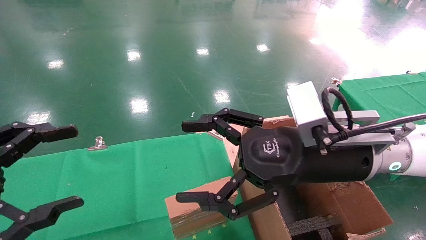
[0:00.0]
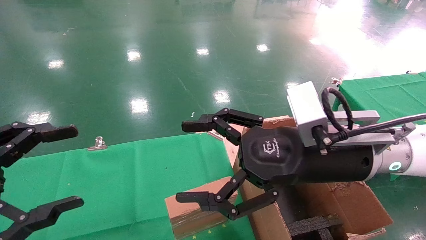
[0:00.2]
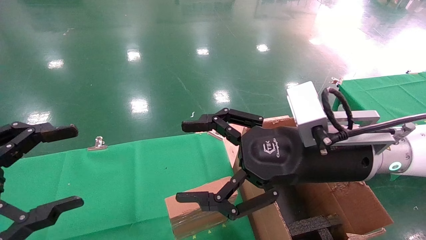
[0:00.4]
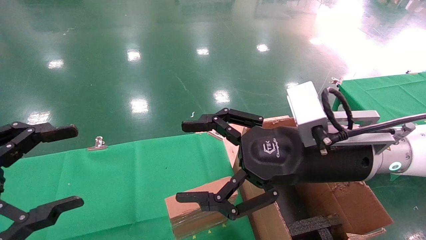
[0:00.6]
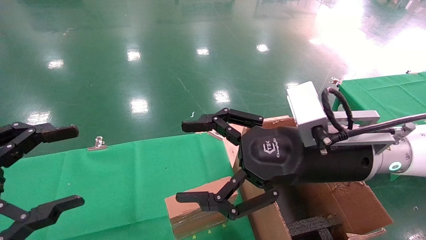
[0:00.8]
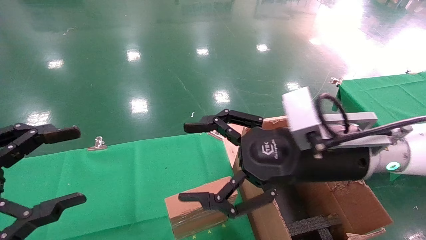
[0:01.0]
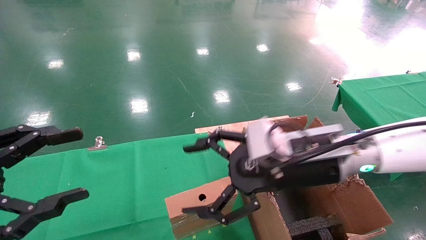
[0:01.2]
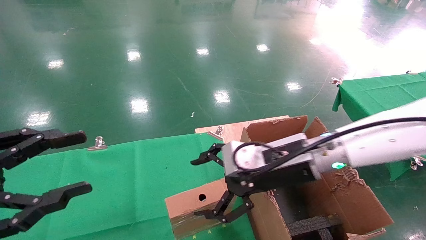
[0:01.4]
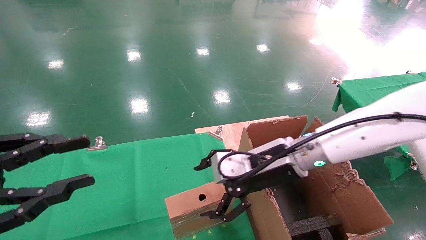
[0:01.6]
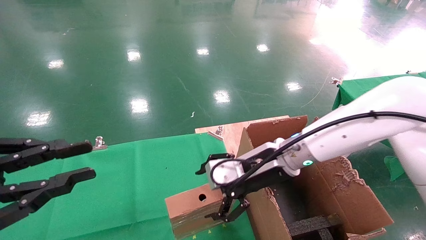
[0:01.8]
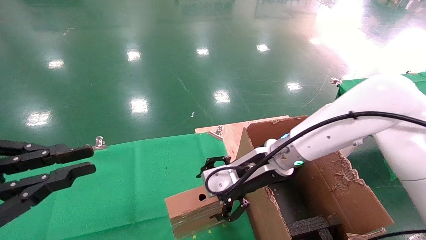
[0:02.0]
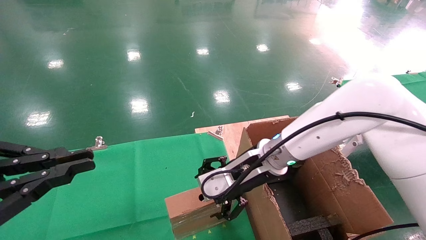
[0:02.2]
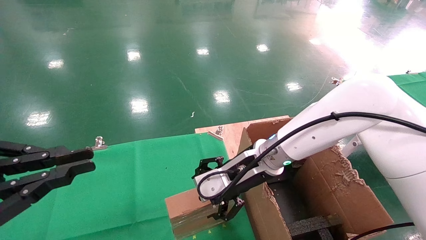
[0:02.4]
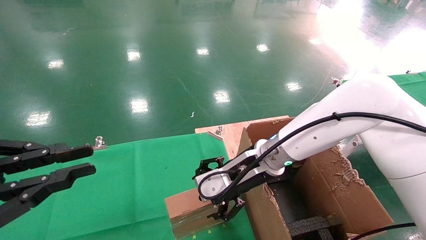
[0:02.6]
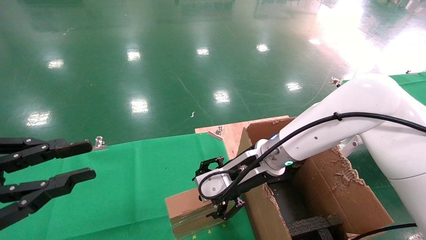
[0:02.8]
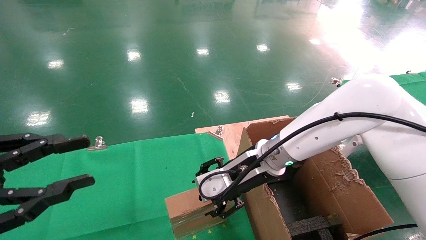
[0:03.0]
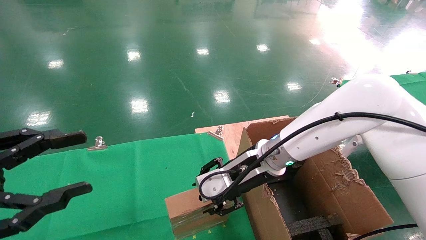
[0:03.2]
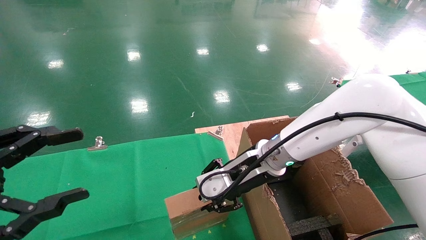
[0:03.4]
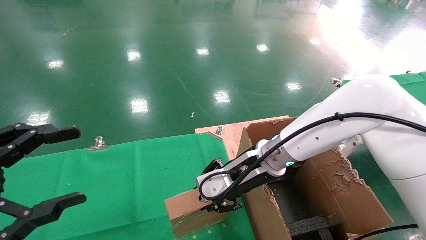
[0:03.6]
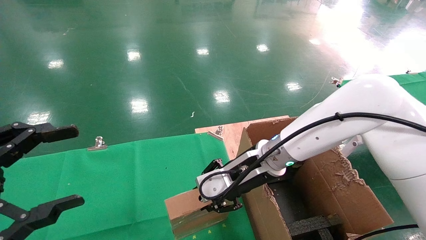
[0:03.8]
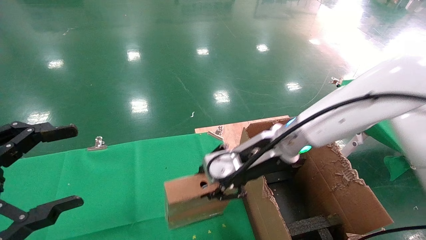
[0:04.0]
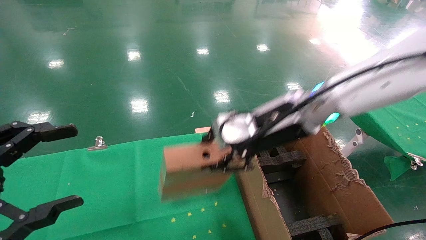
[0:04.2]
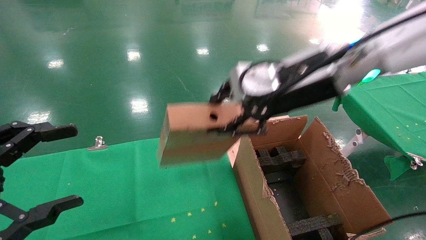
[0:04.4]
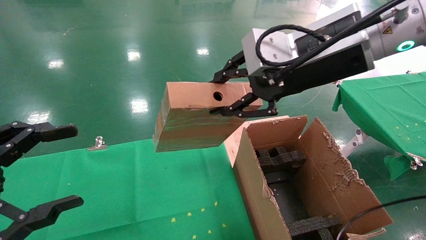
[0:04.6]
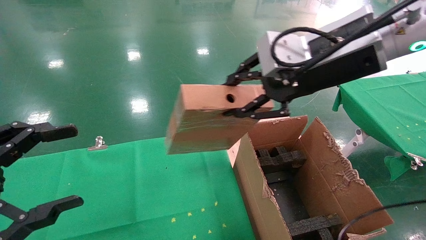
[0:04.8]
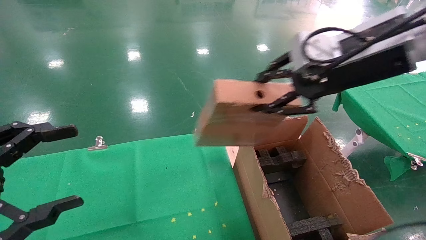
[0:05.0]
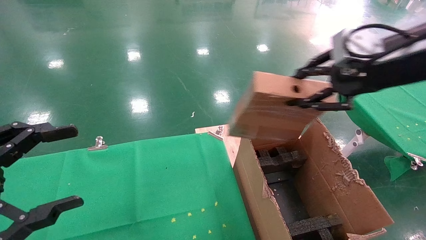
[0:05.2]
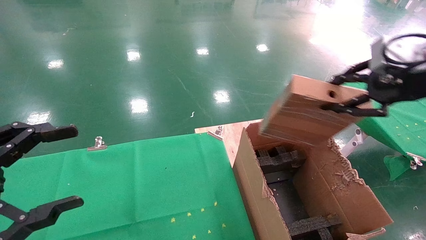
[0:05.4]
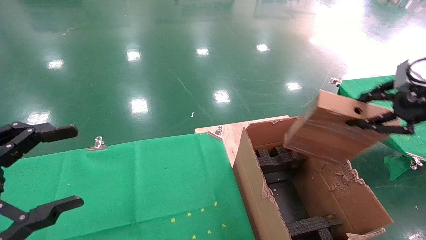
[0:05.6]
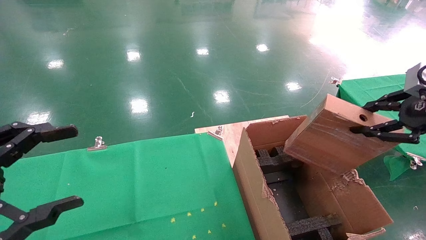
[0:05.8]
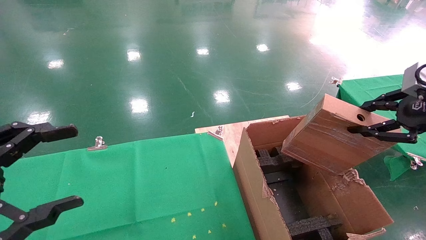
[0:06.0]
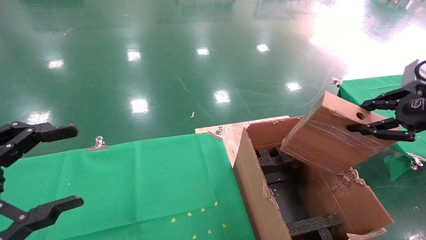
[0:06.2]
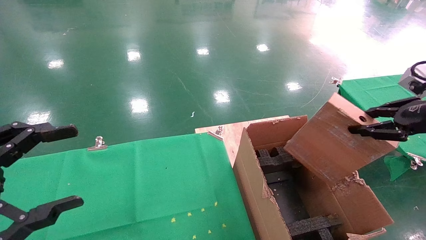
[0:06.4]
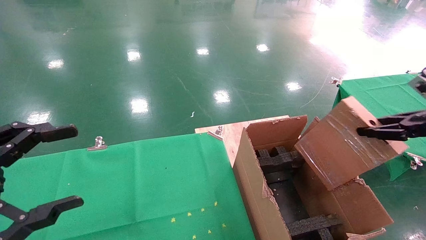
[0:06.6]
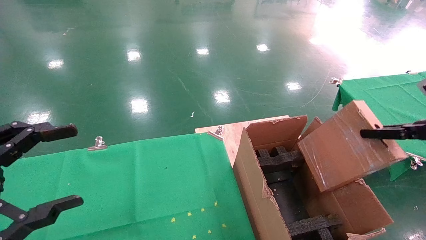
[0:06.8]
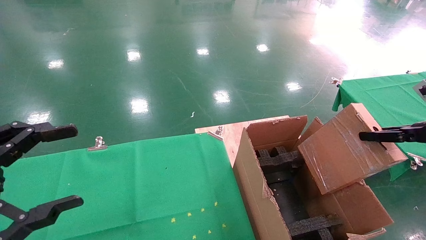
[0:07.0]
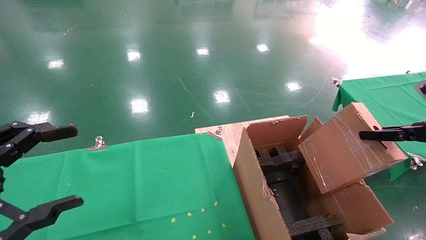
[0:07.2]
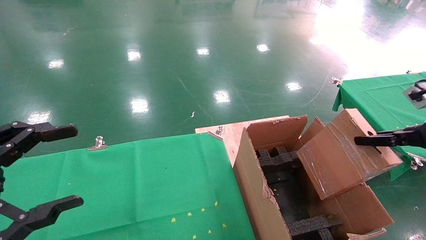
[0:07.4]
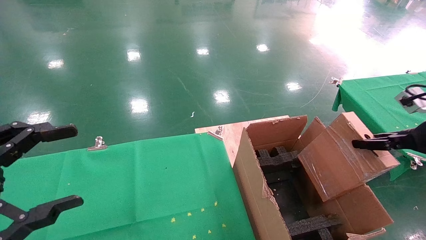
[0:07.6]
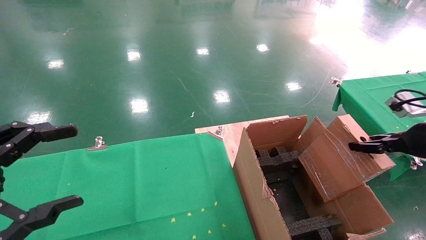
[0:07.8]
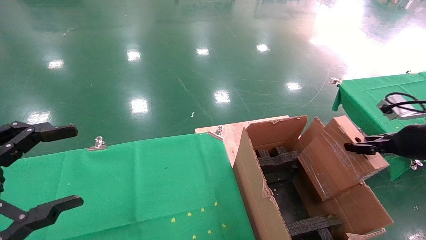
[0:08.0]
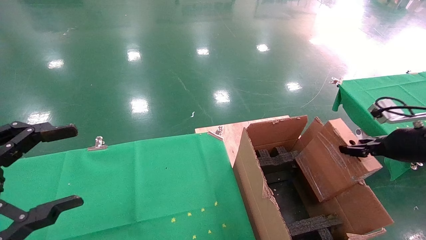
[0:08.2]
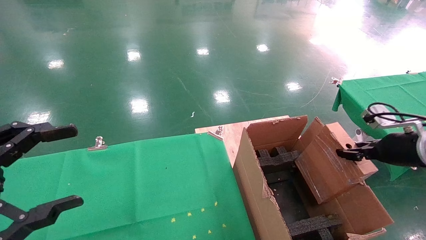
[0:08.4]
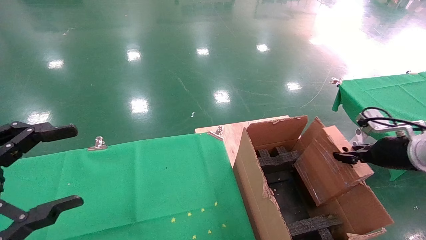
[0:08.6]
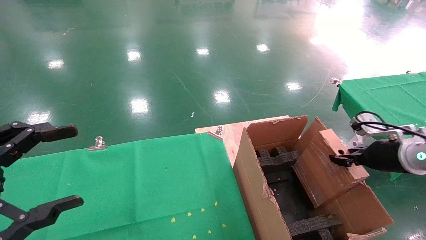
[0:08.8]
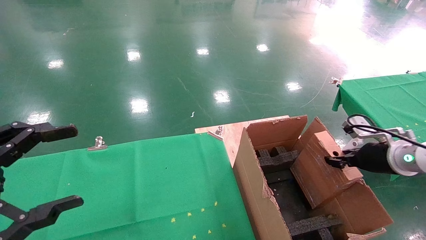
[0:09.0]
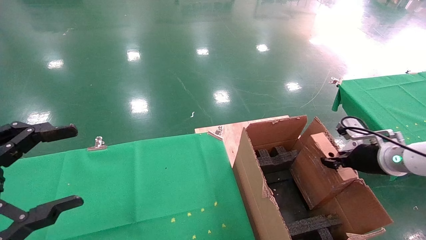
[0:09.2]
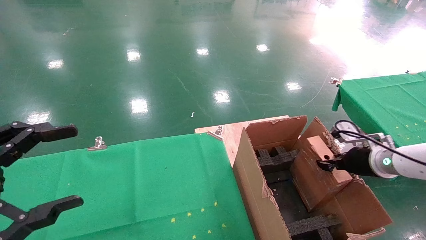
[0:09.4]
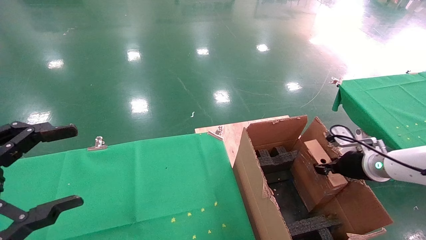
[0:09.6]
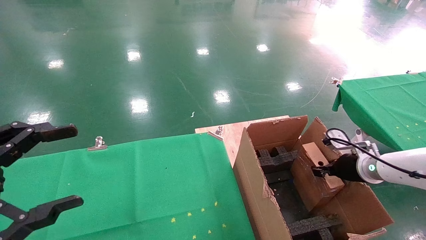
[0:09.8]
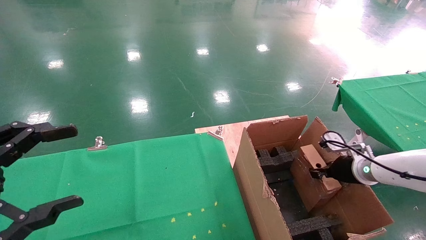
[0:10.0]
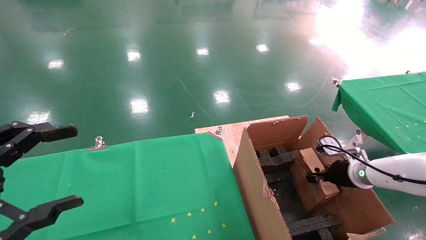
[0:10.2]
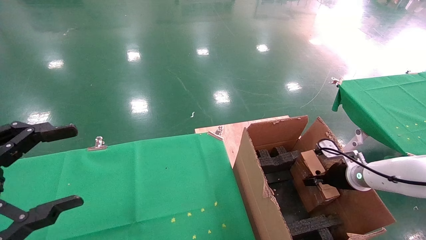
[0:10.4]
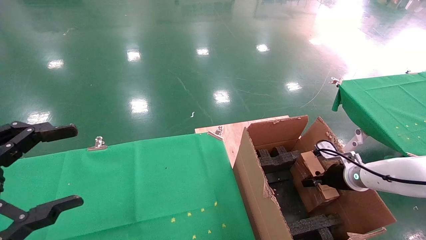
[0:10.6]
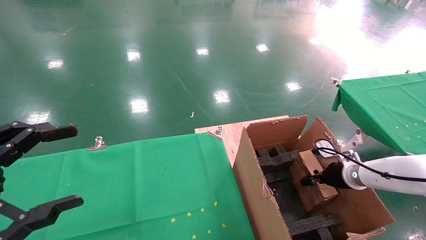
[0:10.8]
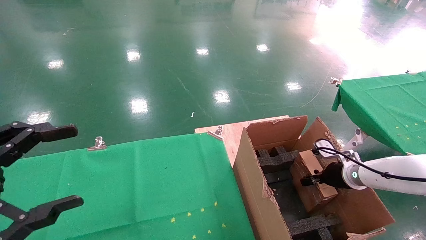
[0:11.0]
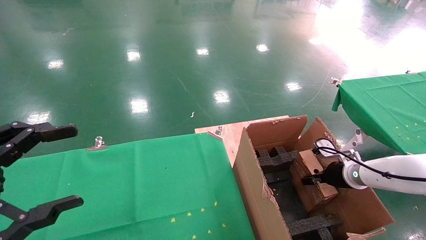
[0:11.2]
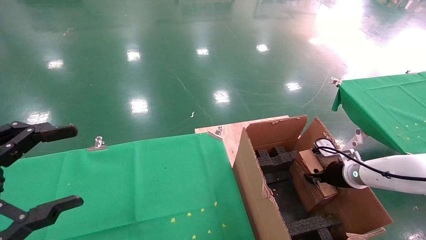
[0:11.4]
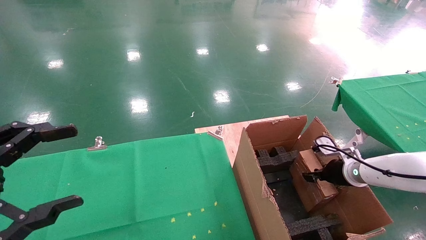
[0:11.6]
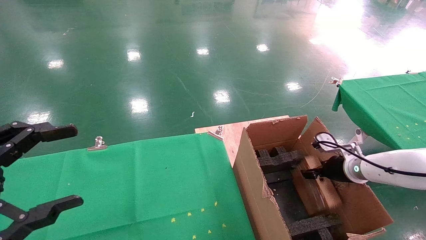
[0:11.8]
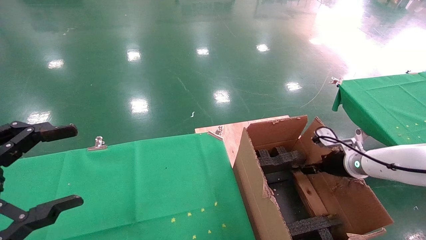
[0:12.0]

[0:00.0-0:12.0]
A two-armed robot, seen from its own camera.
Task of the whole recording: using a robotic arm to pick up a cardboard box and palace it the carton.
Step, 0:01.0 to 0:03.4: Pick up the mouse and the power cord paper box.
0:00.0 to 0:01.6: The right gripper is displaced forward and downward by some 10 cm; the left gripper closes.
0:01.6 to 0:03.0: The grippers move only a little.
0:03.0 to 0:04.4: The left gripper opens up. The right gripper shifts about 15 cm upward, and closes its fingers.
0:04.4 to 0:06.0: The right gripper goes about 25 cm to the right.
0:06.0 to 0:07.6: The right gripper heads downward, covering about 10 cm.
0:07.6 to 0:09.0: The right gripper goes approximately 10 cm downward, forward and to the left.
0:09.0 to 0:10.4: The right gripper goes some 10 cm downward and forward.
0:10.4 to 0:12.0: The right gripper opens.

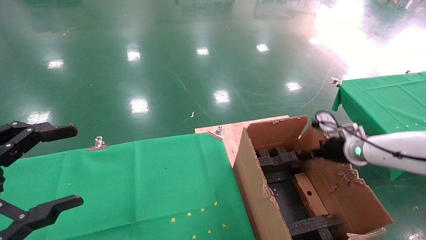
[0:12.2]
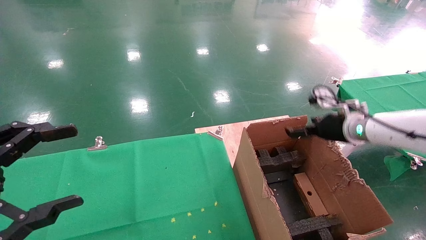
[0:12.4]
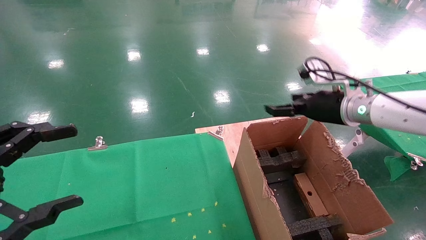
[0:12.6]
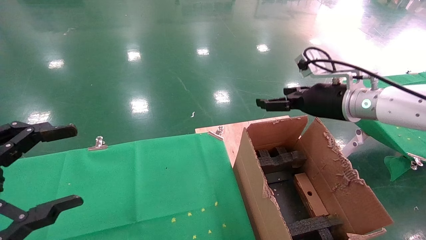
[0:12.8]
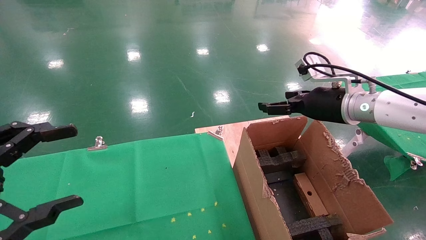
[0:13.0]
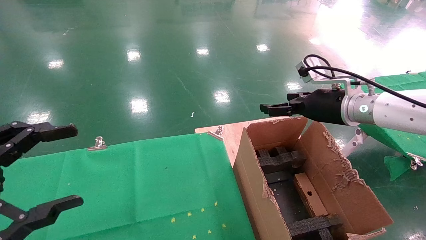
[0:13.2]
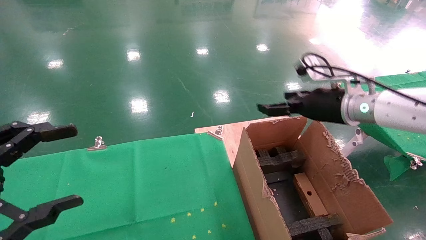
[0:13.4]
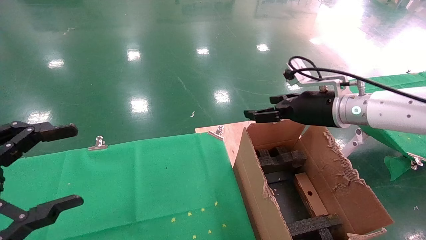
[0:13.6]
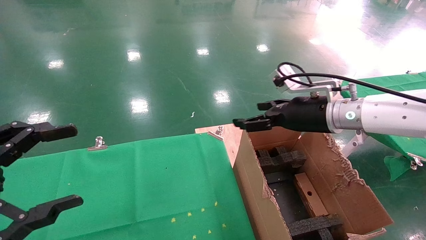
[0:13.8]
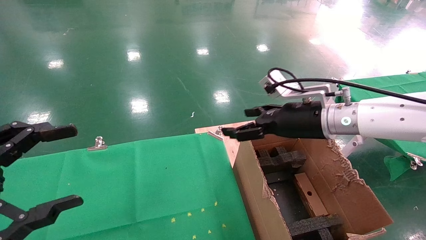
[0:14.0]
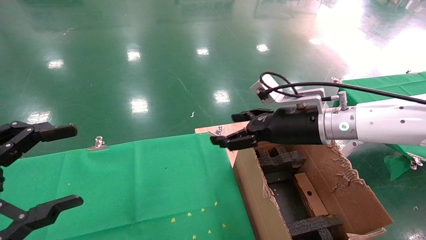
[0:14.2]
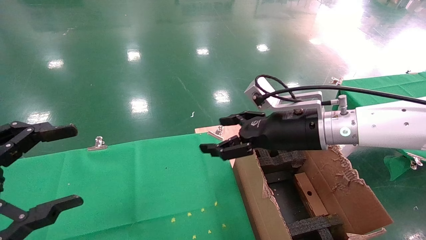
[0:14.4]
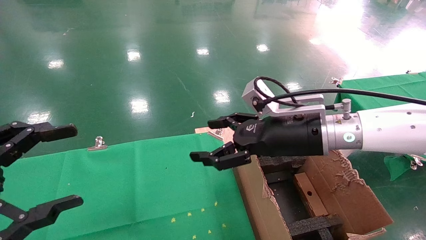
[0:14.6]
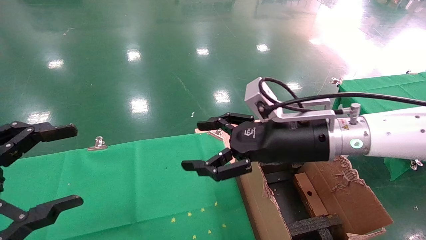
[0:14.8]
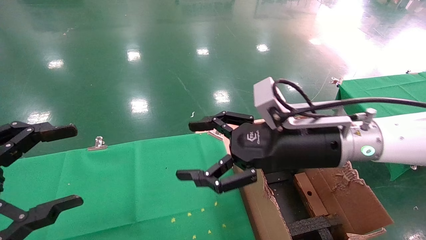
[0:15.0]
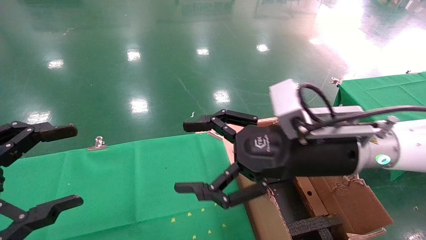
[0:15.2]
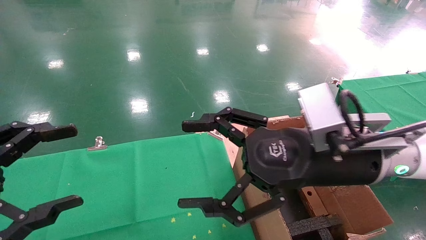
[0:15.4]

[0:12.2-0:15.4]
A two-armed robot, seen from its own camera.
Task of the whole recording: using a robotic arm to pick up a cardboard box and palace it the carton.
0:12.2 to 0:13.8: The right gripper goes about 15 cm to the left and upward.
0:13.8 to 0:15.4: The right gripper travels backward and to the left by roughly 15 cm.
